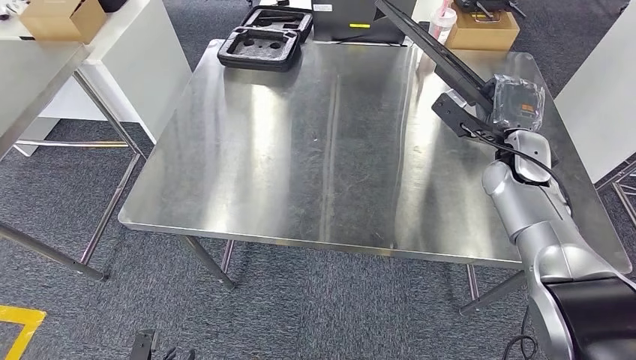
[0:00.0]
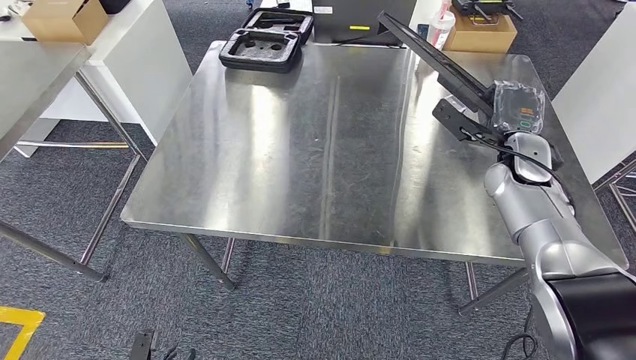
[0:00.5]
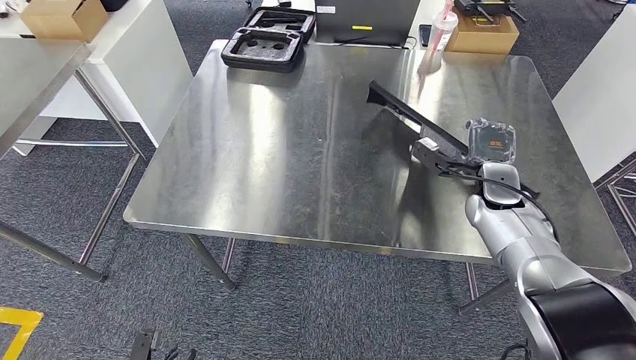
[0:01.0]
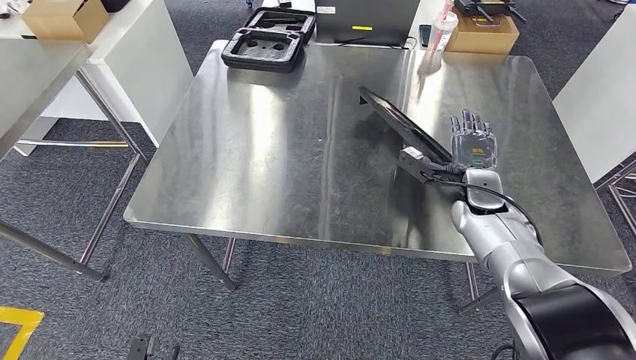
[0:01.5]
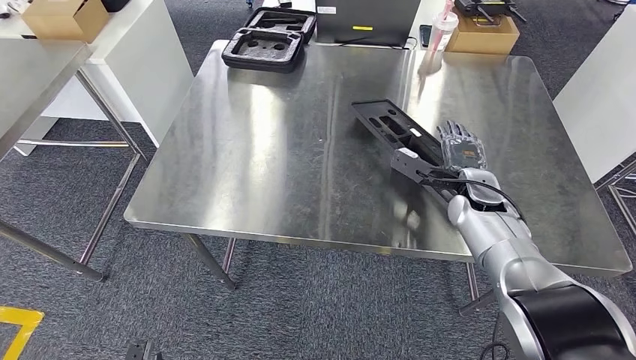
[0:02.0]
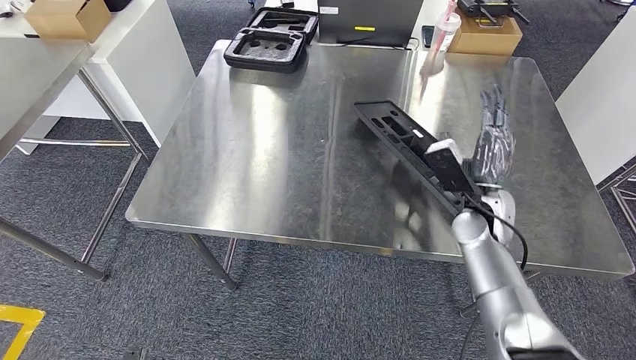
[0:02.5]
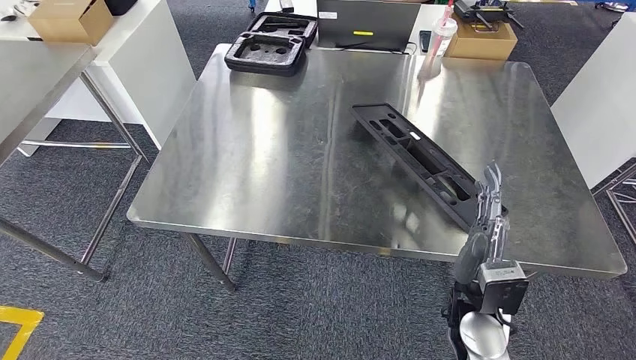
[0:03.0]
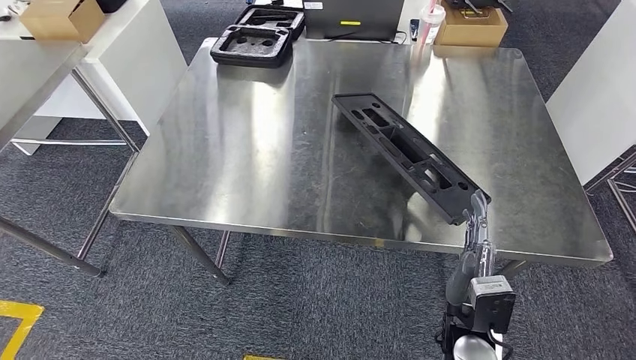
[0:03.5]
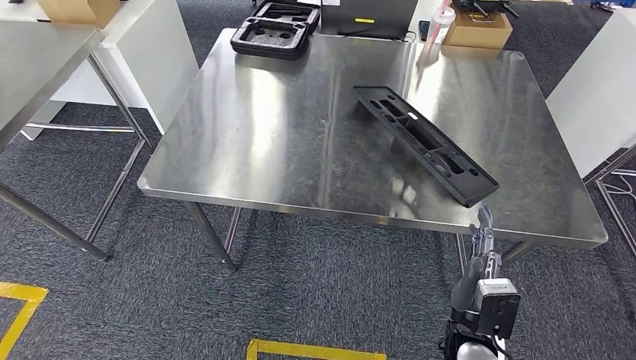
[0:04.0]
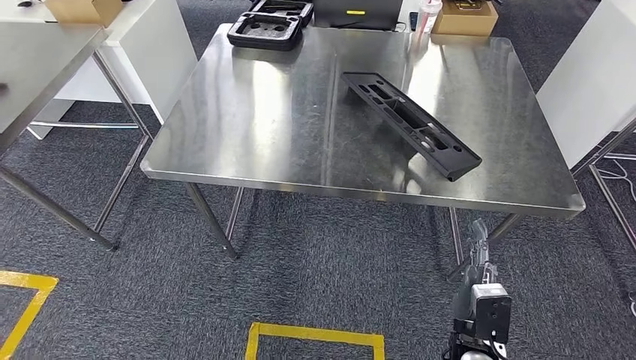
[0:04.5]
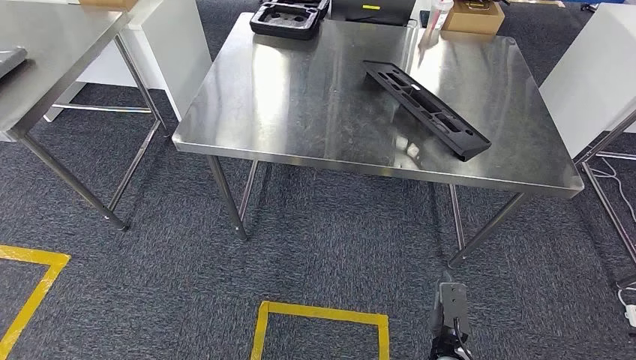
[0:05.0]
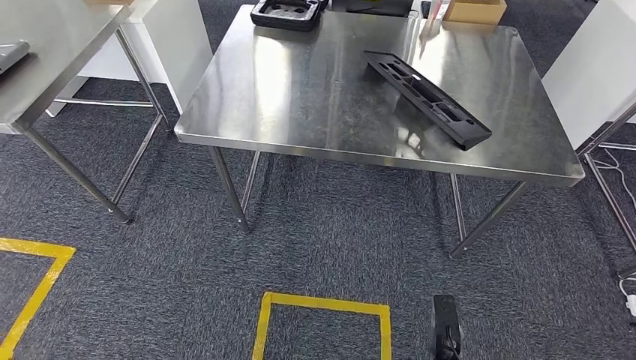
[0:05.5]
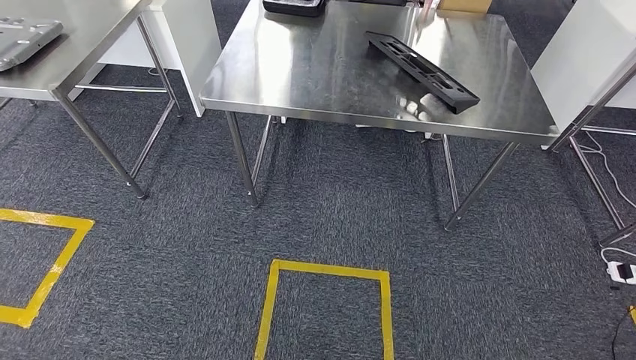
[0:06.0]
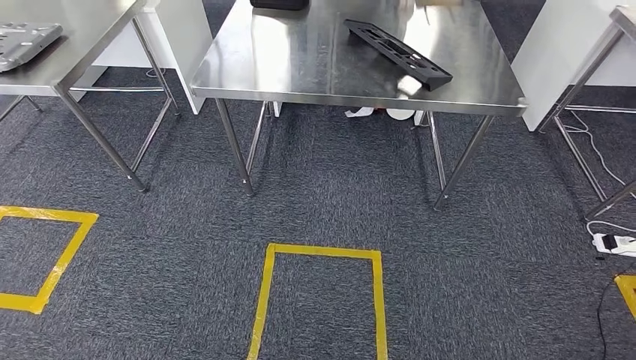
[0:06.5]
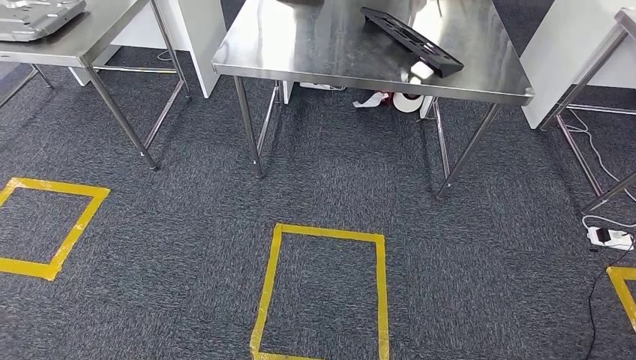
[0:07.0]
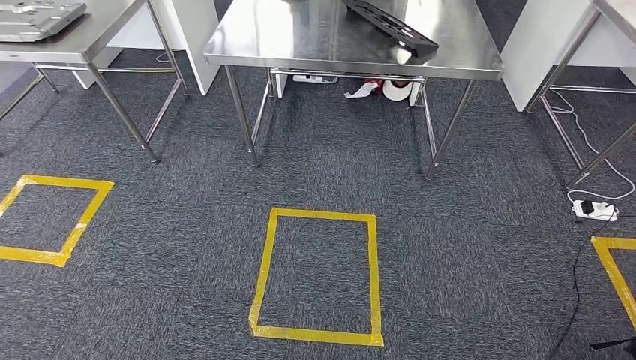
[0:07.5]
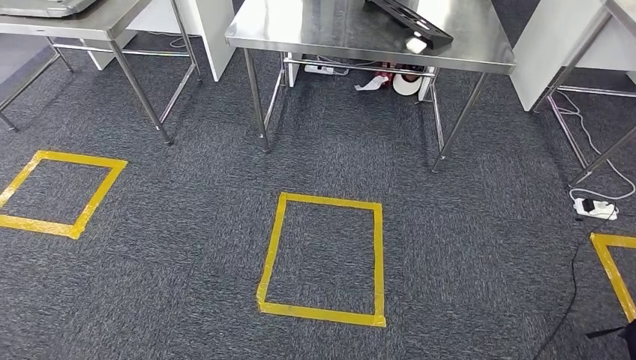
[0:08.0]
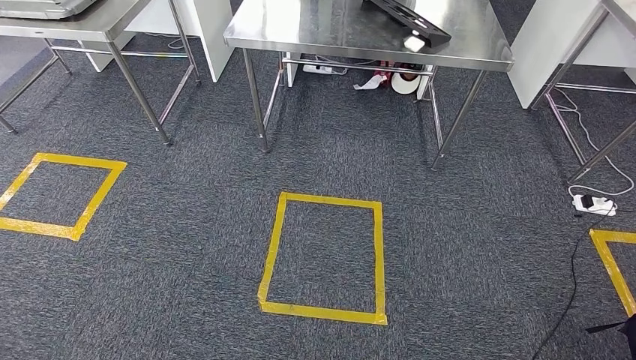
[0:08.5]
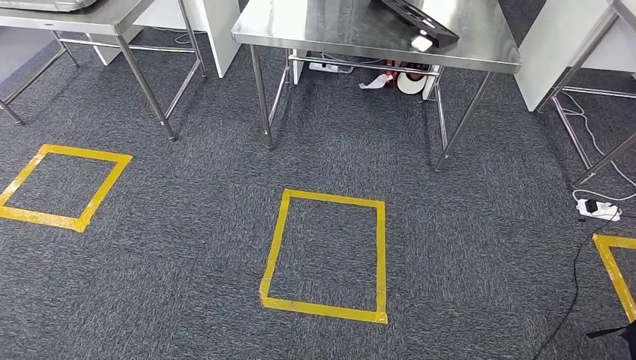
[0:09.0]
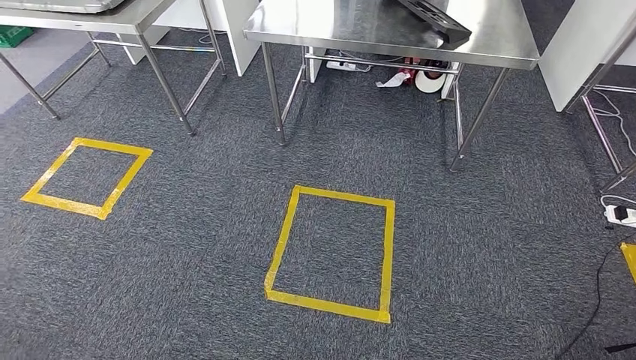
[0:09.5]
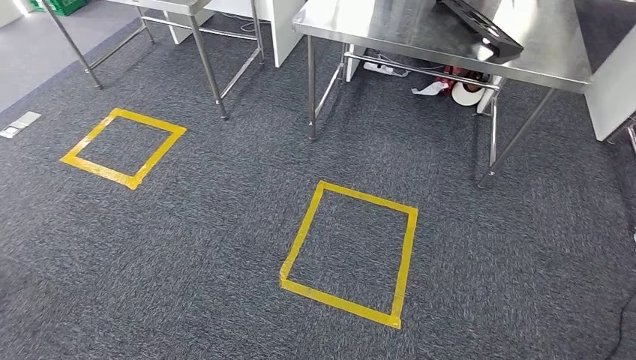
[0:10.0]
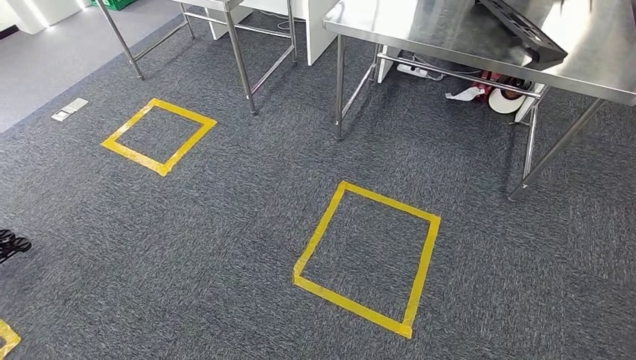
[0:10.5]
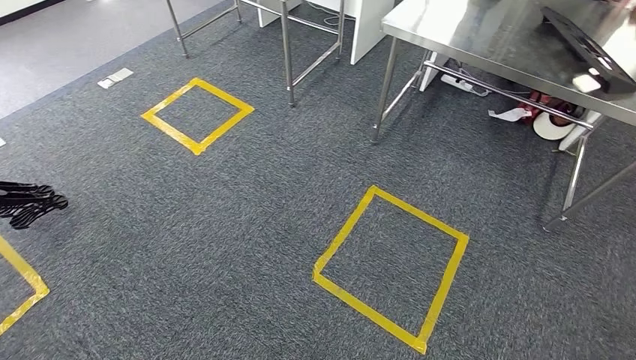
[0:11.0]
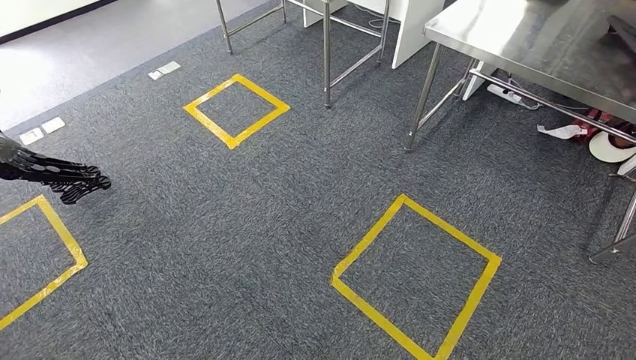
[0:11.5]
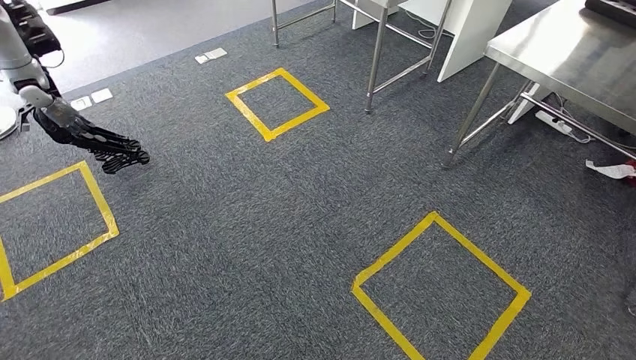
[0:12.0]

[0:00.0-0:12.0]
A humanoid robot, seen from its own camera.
Step, 0:00.0 to 0:07.0: Insert the large material into the corresponding slot on the workbench.

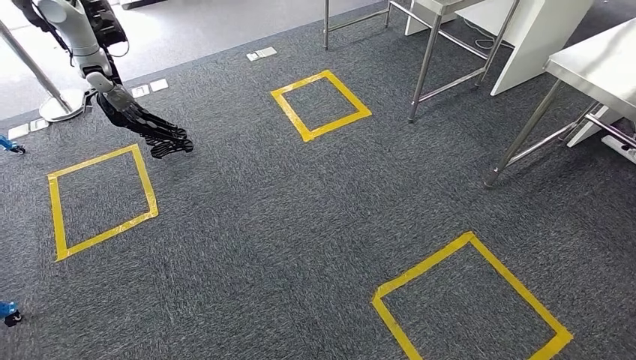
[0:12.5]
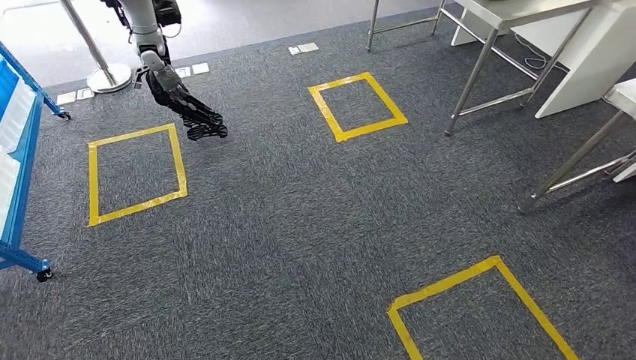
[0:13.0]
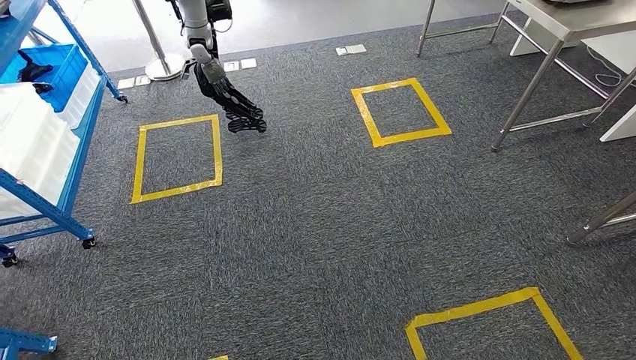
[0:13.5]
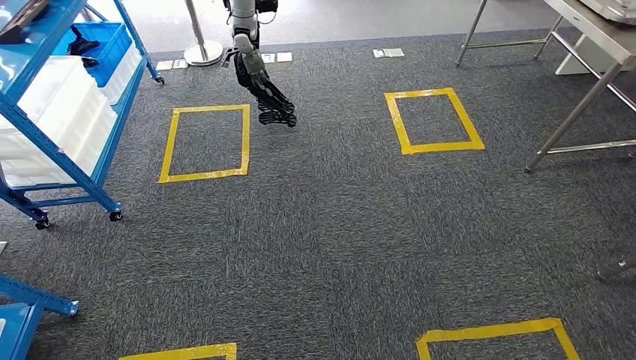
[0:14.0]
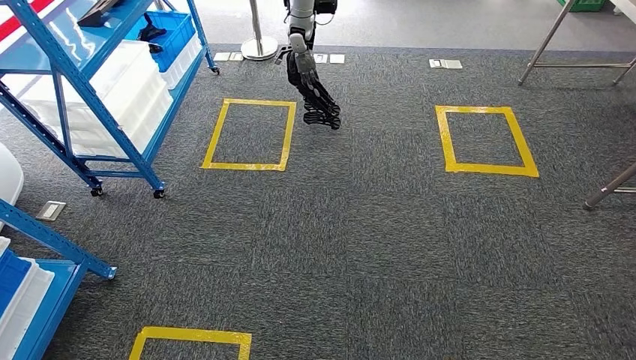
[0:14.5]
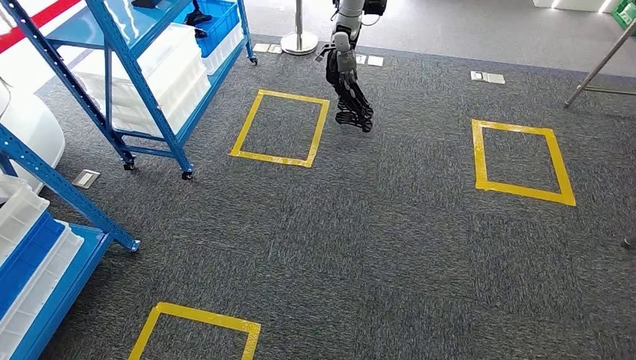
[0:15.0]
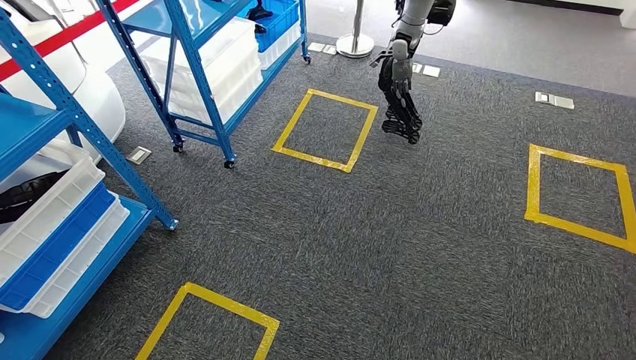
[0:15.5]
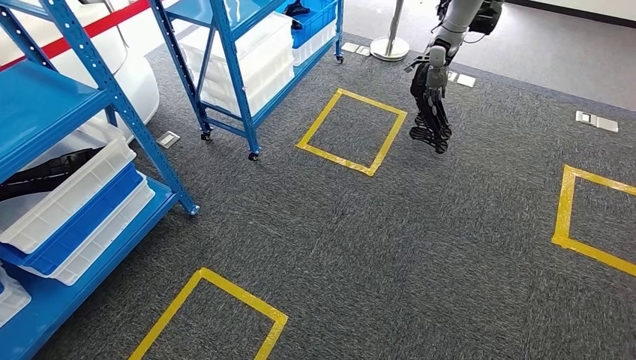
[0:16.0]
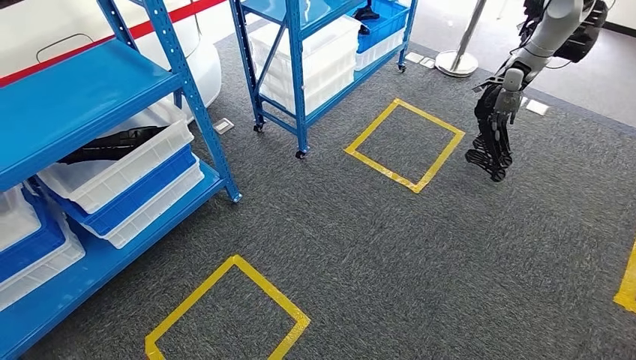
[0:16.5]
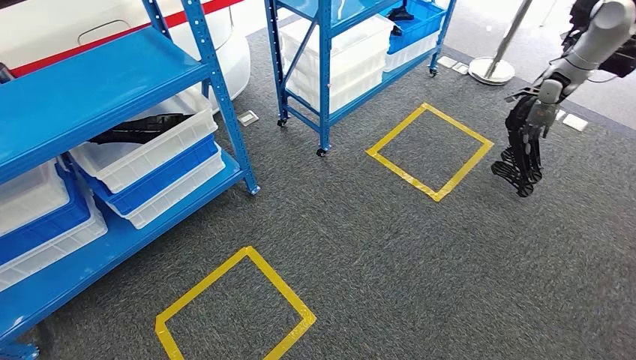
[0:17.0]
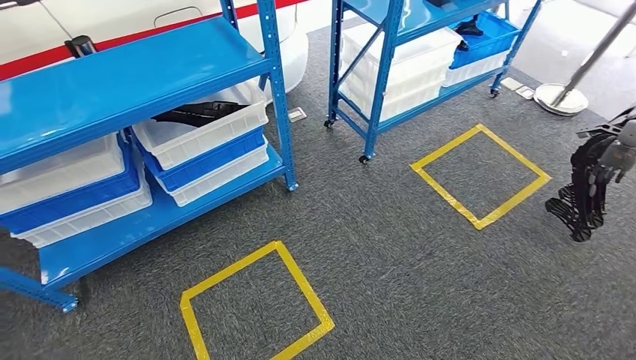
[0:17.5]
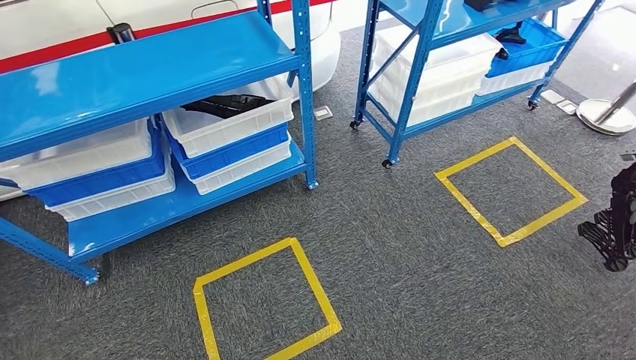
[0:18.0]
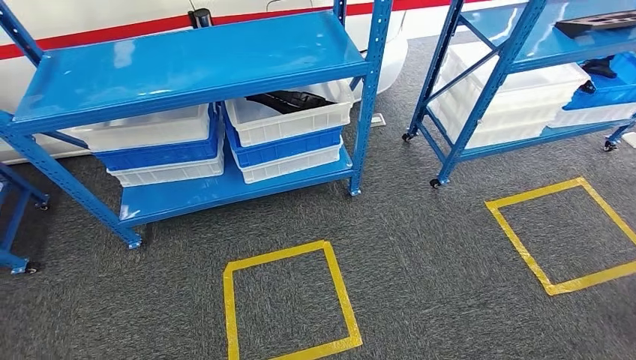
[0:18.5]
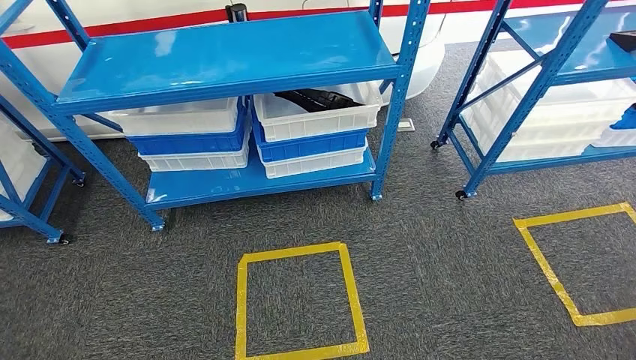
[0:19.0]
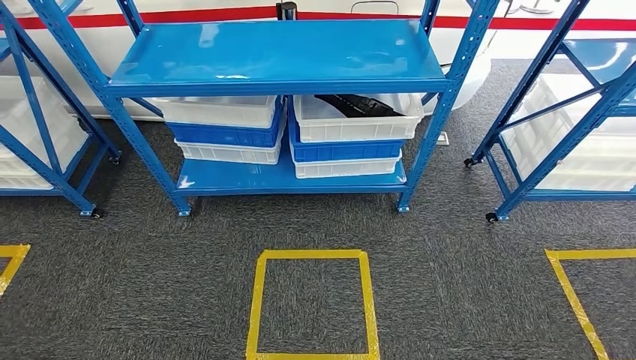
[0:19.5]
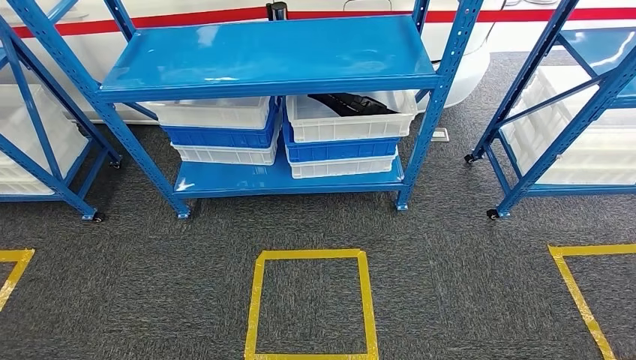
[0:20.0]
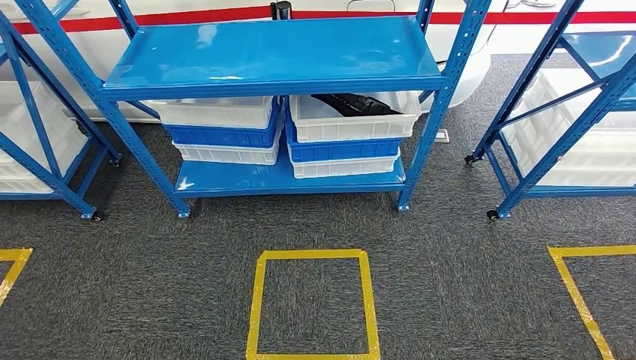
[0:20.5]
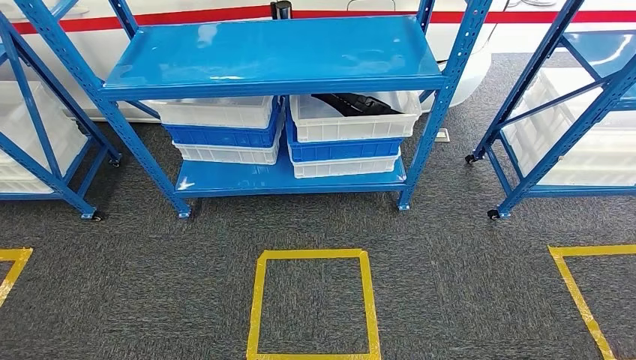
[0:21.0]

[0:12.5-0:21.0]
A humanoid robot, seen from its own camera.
Step, 0:12.5 to 0:21.0: Move to the initial position of the shelf.
